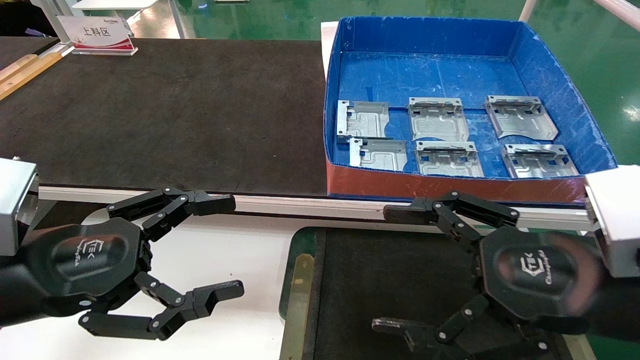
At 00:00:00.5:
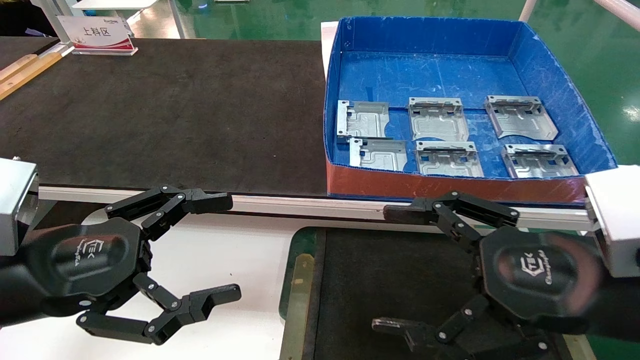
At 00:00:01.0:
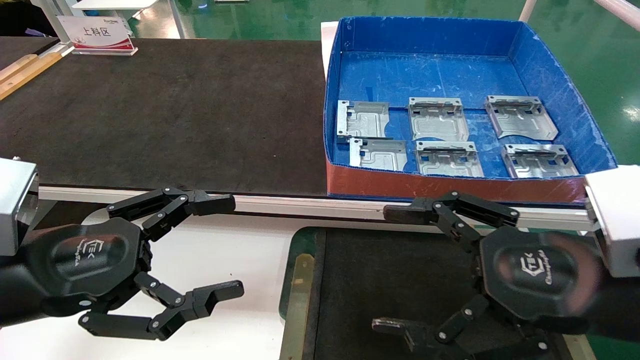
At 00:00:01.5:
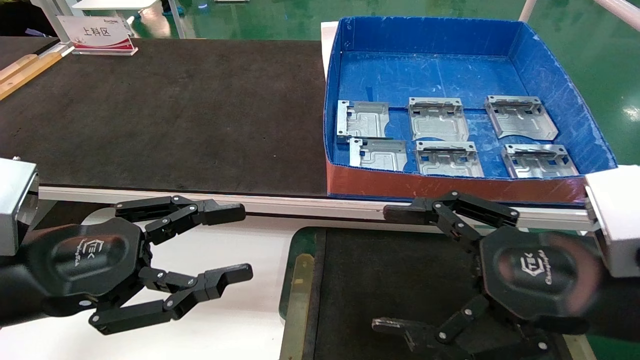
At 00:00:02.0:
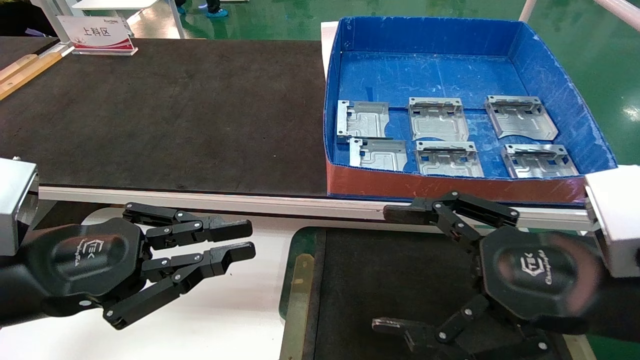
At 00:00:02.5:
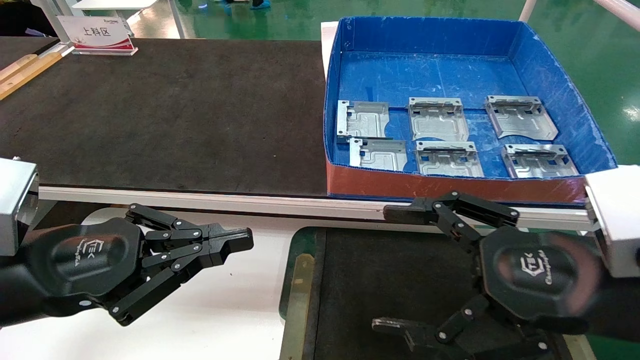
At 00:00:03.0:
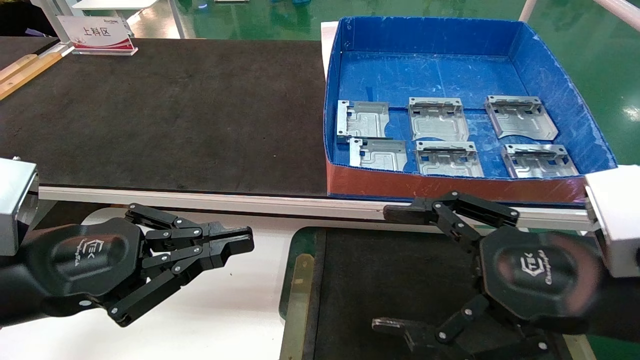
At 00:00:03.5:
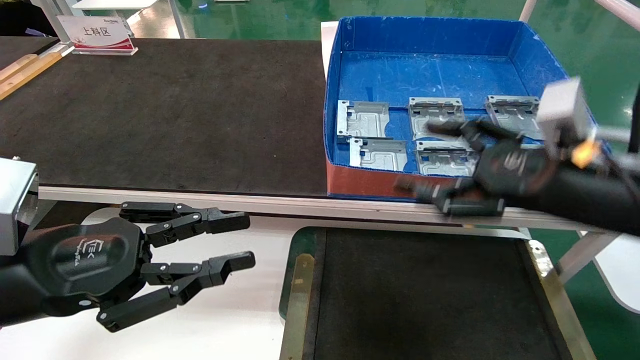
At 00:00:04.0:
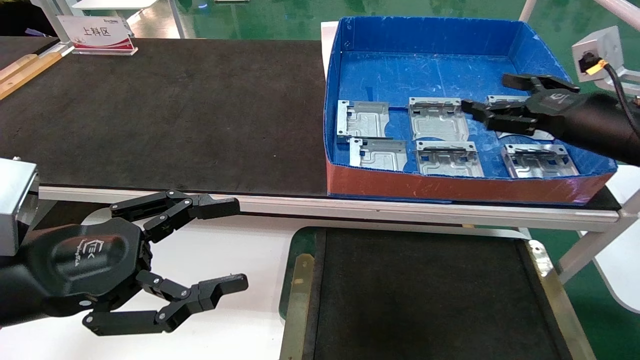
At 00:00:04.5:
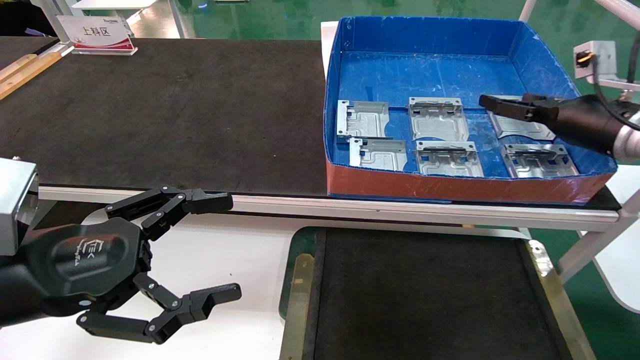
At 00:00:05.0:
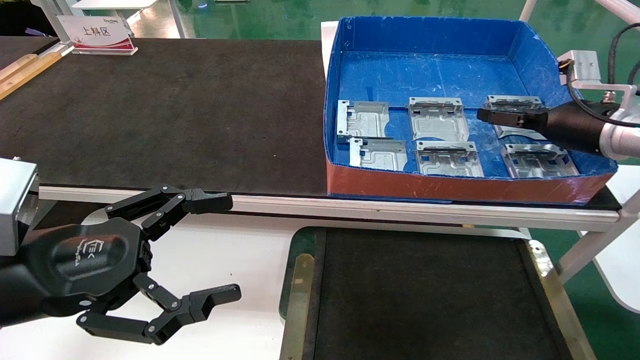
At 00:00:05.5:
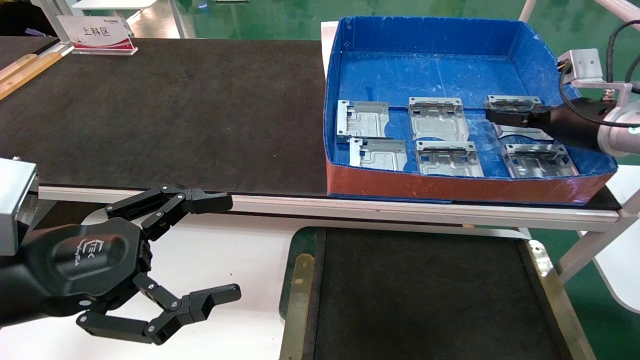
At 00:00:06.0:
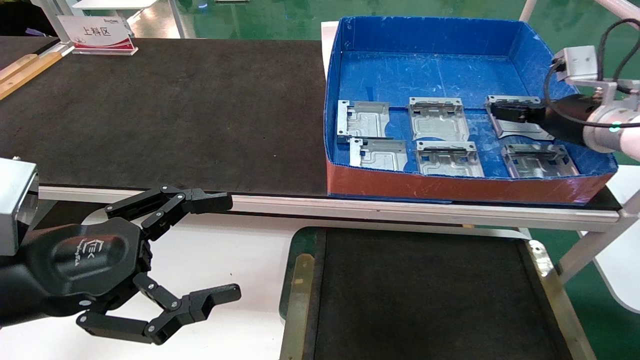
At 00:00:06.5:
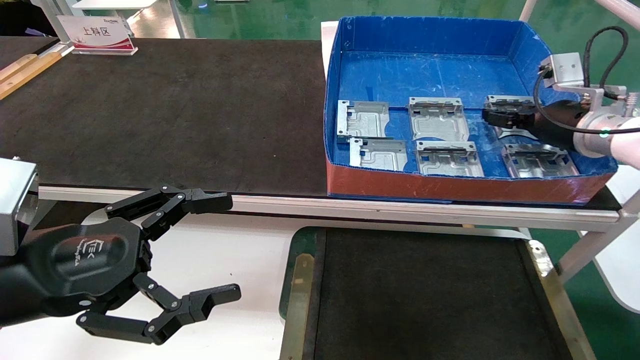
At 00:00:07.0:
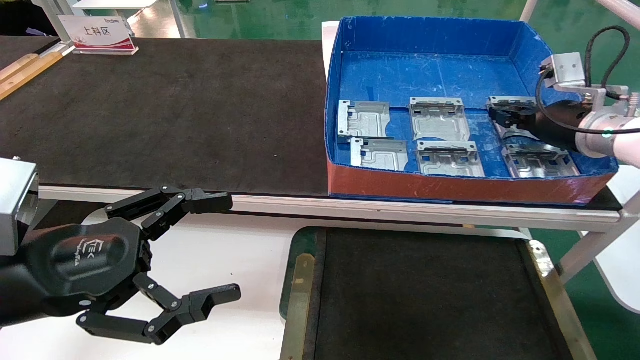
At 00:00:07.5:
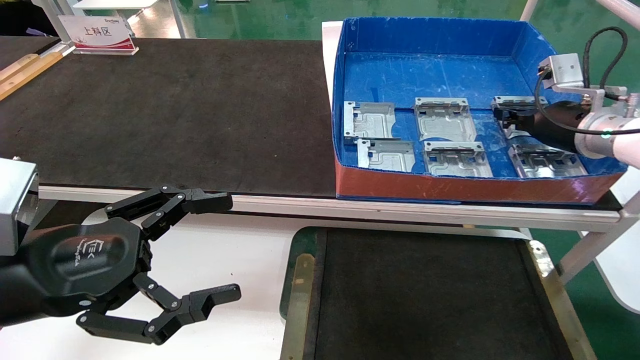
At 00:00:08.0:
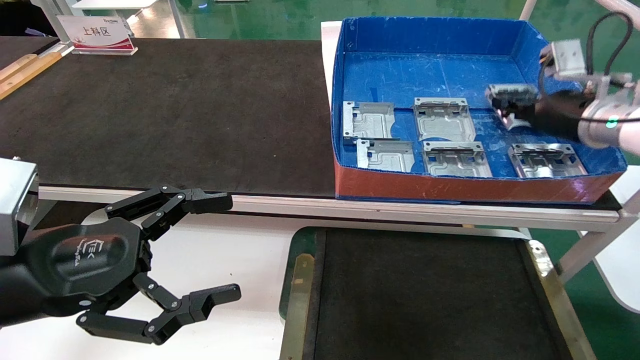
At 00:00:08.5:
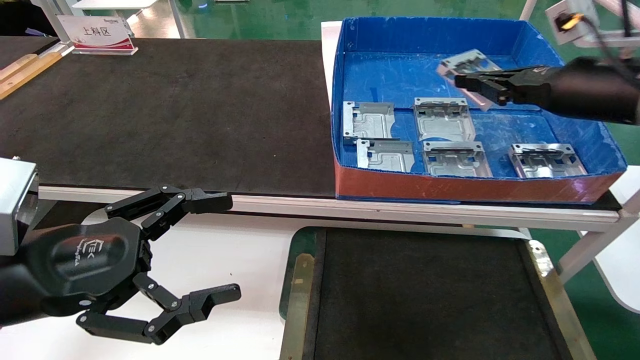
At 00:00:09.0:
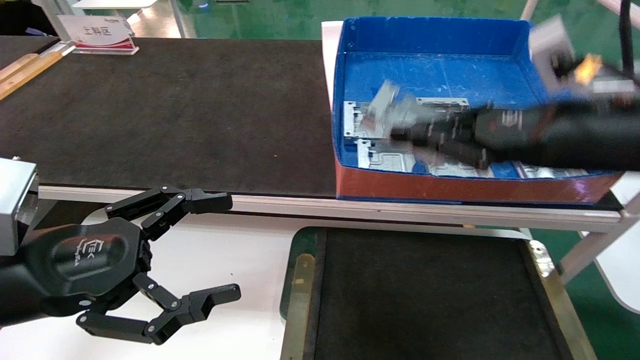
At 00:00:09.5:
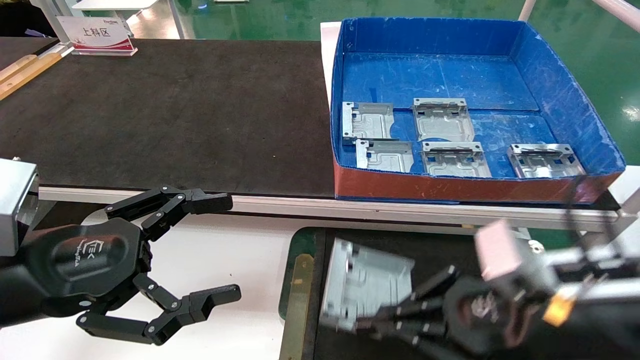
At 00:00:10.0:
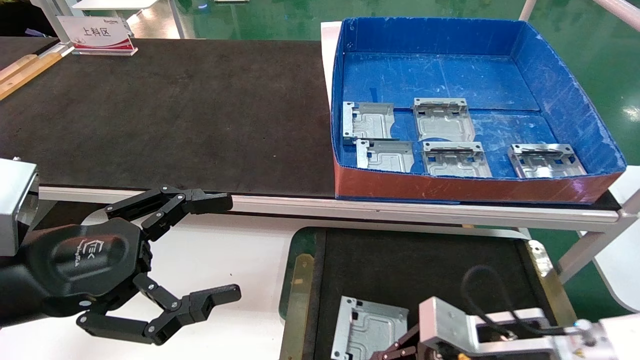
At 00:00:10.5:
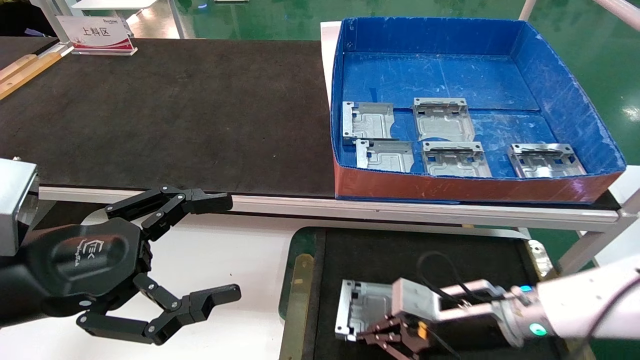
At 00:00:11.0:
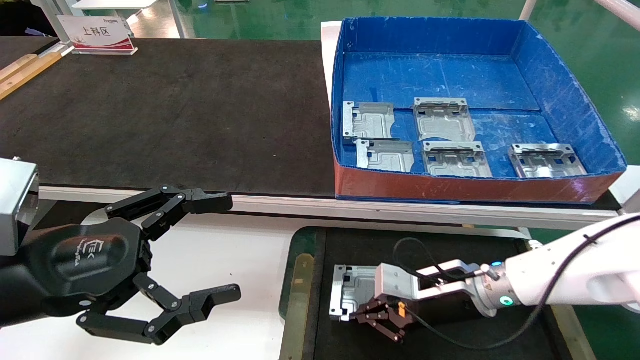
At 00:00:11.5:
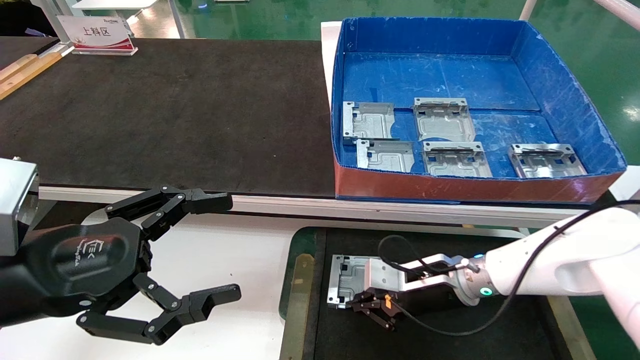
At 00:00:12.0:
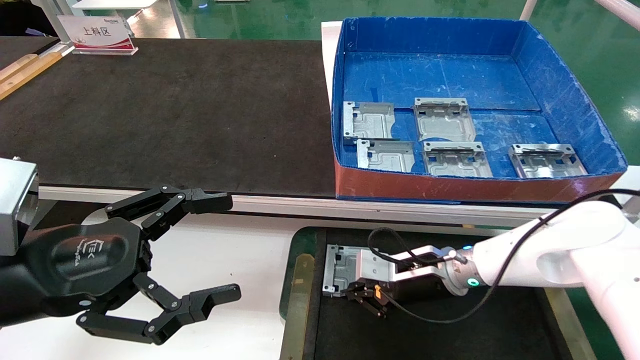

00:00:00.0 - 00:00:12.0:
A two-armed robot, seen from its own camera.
Task of the whole recording: pick up parts and place them into a black container.
Step, 00:00:03.5 - 00:00:07.5: Pick up the hard drive bracket from the feeding area.
00:00:00.0 - 00:00:02.0: The left gripper closes up.
00:00:02.0 - 00:00:04.0: The left gripper opens its fingers. Meanwhile the right gripper is displaced forward and to the right by approximately 20 cm.
00:00:04.0 - 00:00:06.0: The right gripper goes roughly 10 cm forward.
00:00:06.0 - 00:00:08.0: The right gripper closes.
00:00:08.0 - 00:00:10.0: The right gripper heads downward, backward and to the left, covering about 30 cm.
00:00:10.0 - 00:00:12.0: The right gripper heads forward, covering approximately 15 cm.

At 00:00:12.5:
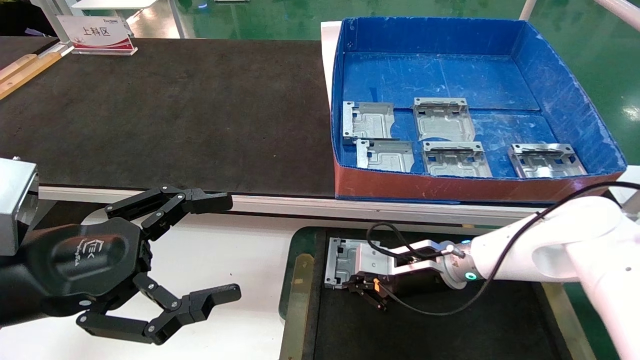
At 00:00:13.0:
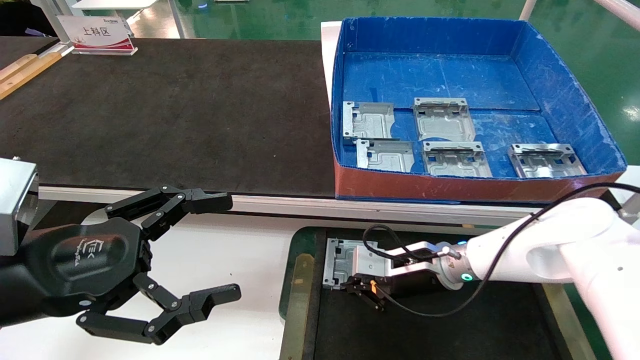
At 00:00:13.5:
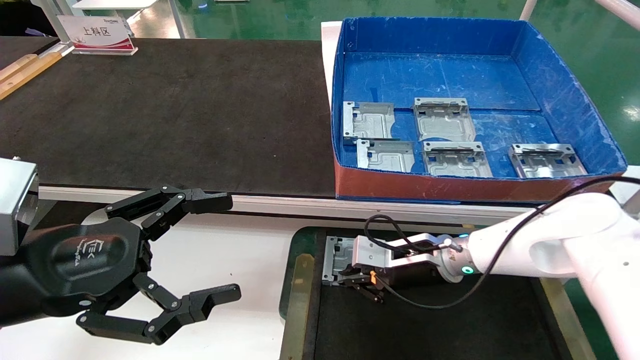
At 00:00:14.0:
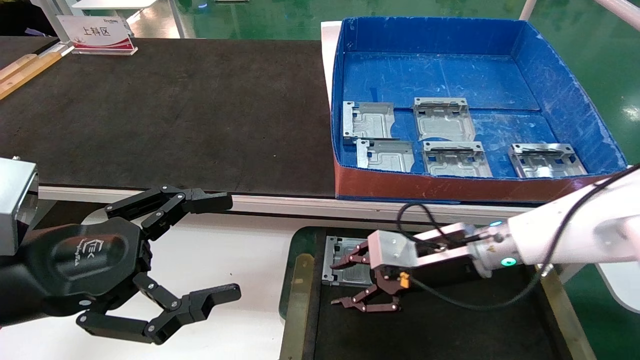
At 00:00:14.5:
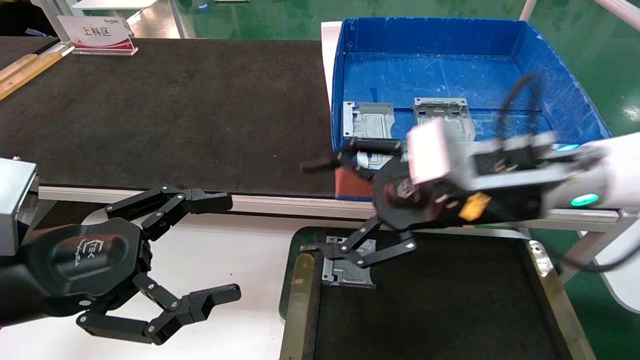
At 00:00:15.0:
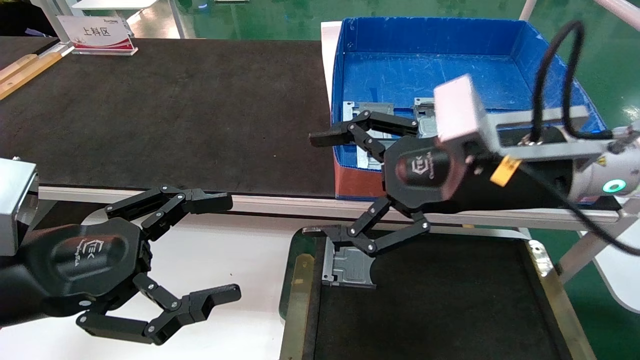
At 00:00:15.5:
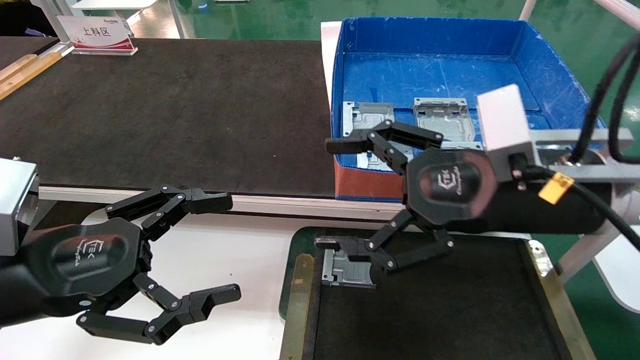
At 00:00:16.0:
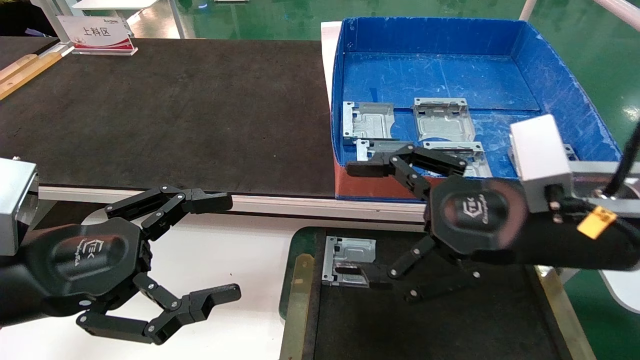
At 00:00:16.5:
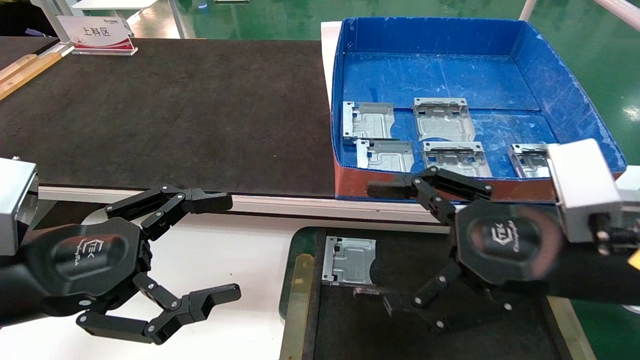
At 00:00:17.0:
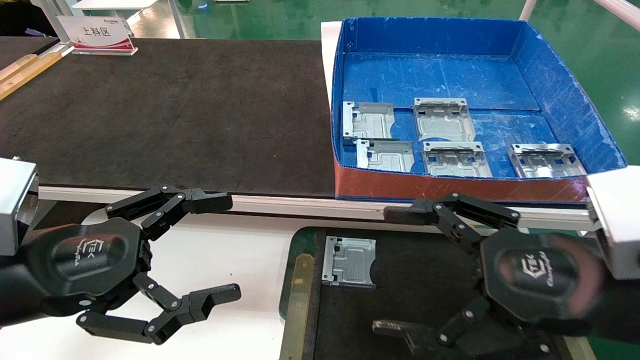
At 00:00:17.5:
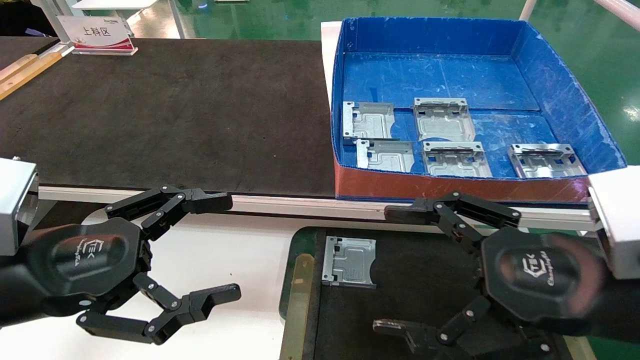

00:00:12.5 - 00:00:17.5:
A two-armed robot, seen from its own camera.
Task of the whole recording: pick up parts and place them into a black container.
00:00:12.5 - 00:00:15.0: The right gripper travels upward and backward by about 25 cm, and opens.
00:00:15.0 - 00:00:17.5: The right gripper travels backward, downward and to the right by approximately 15 cm.
